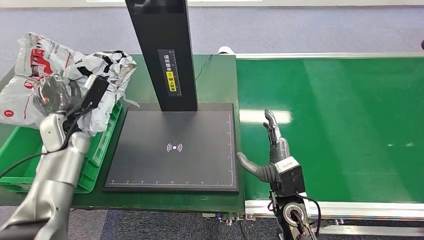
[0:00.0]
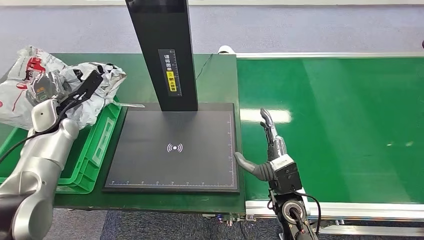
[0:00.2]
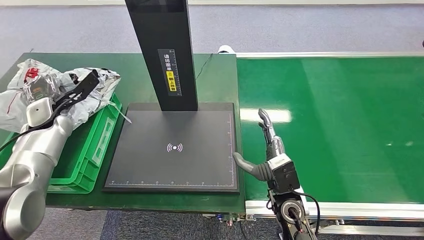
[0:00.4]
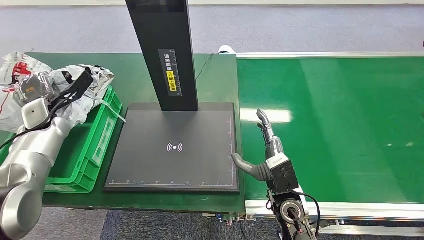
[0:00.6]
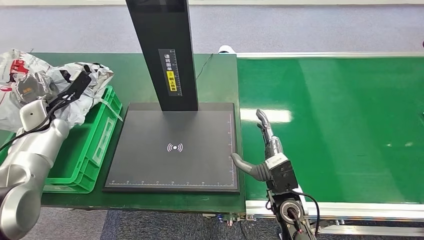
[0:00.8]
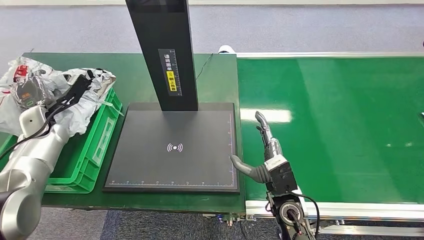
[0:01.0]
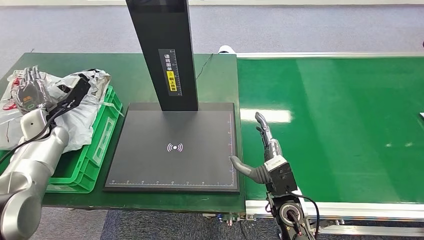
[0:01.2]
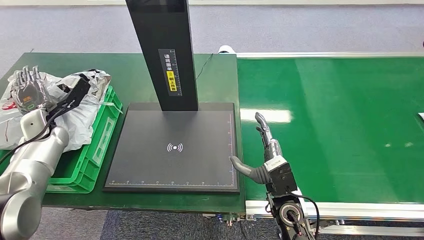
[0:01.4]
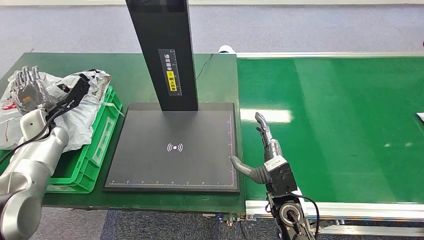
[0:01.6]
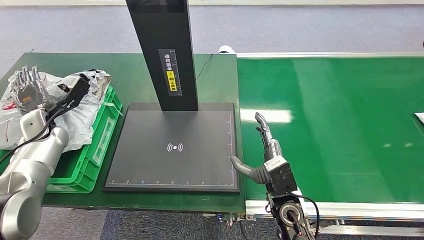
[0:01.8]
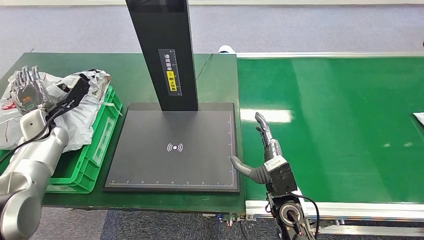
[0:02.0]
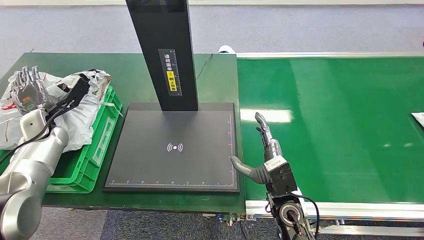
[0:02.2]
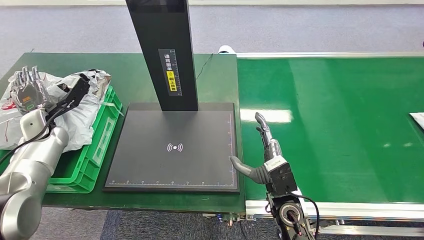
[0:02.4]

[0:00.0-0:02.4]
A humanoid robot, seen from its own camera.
Task of the whole recording: Weigh the package on the weighing device and place it in the left basket.
0:01.2 to 0:02.4: Both hands stay about where they are.
